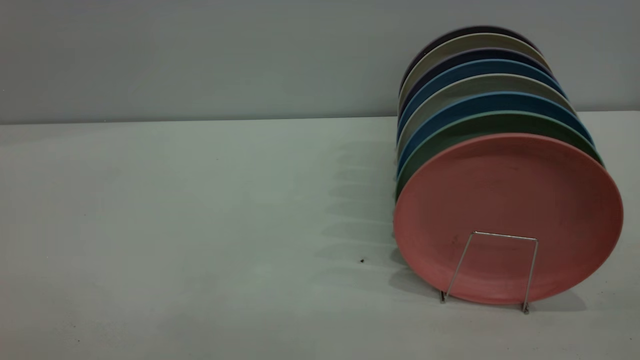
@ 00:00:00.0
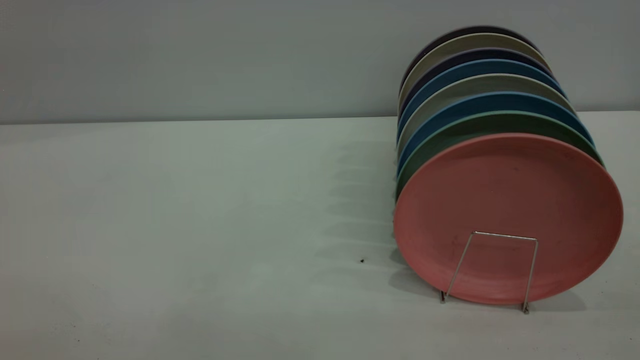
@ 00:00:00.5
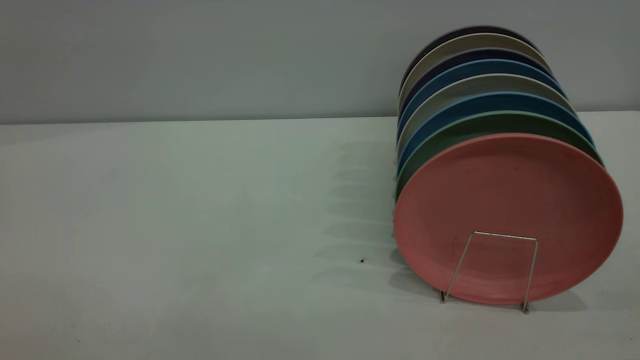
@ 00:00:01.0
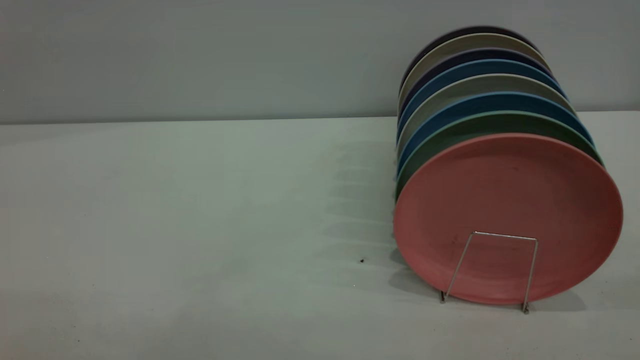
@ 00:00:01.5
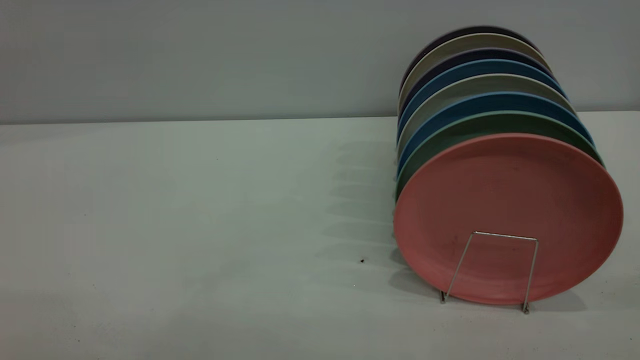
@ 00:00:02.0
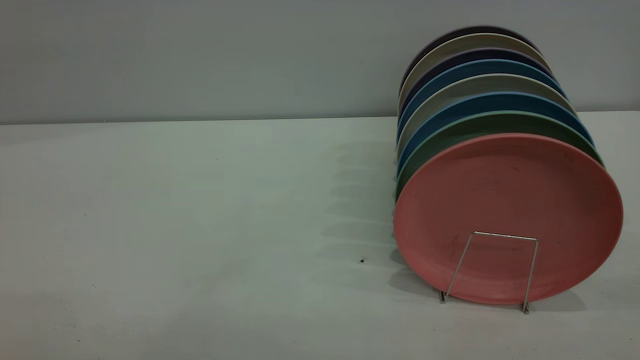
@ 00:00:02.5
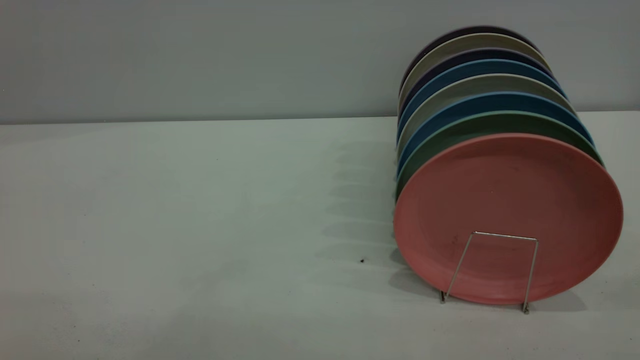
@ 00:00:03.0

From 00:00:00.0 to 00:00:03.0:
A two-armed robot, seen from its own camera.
Task of the whole recording: put the plate on the plate rack.
From 00:00:01.5 to 00:00:03.0: The two grippers keep their place.
